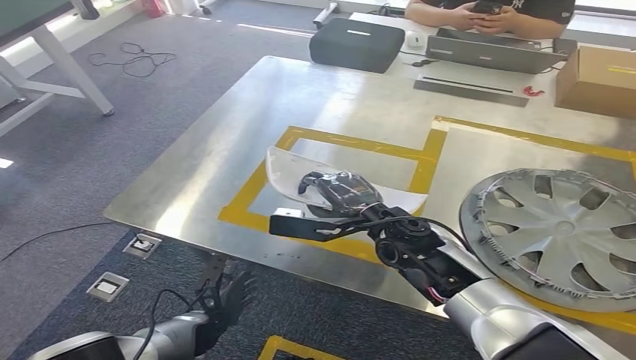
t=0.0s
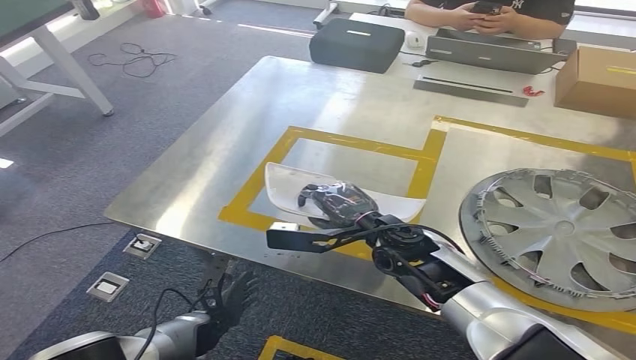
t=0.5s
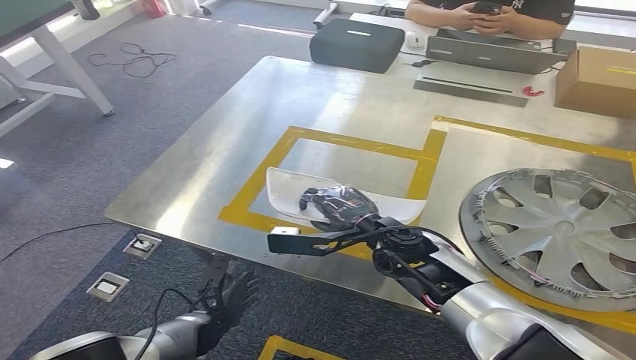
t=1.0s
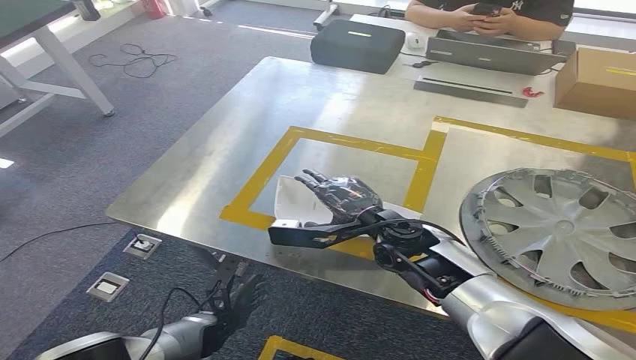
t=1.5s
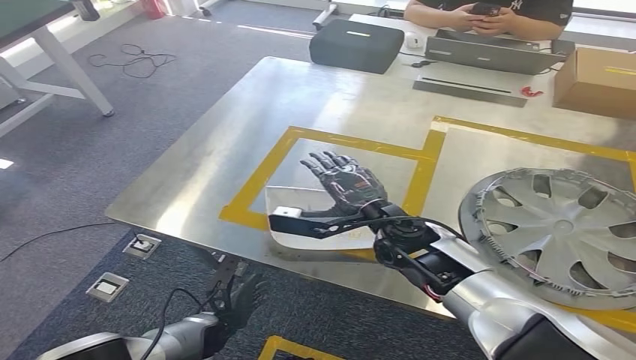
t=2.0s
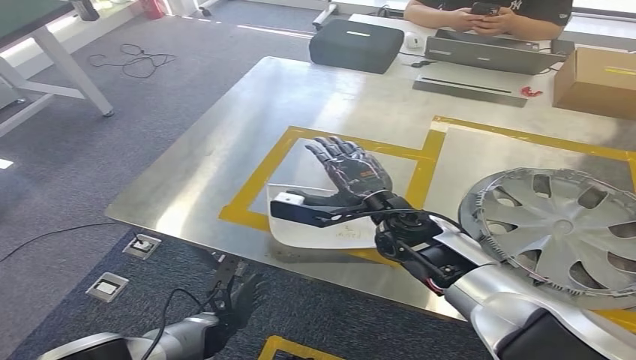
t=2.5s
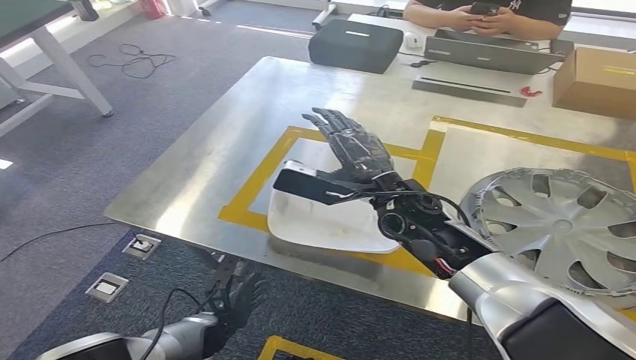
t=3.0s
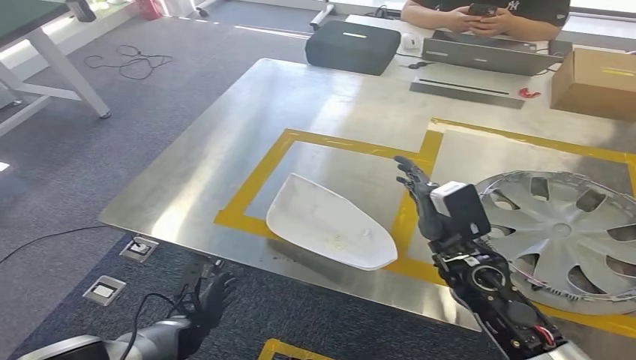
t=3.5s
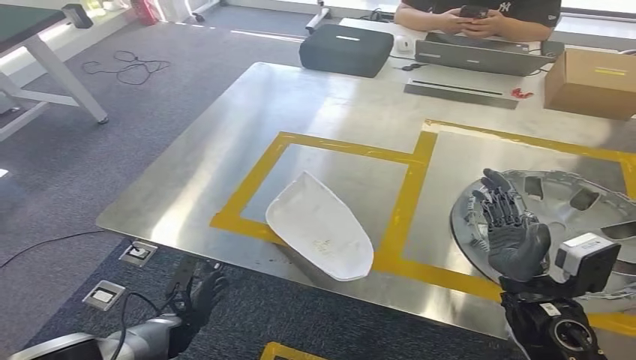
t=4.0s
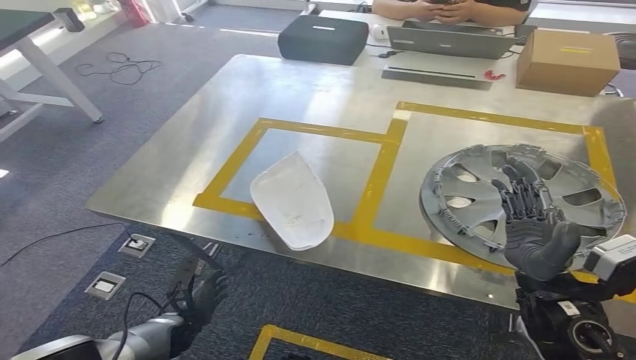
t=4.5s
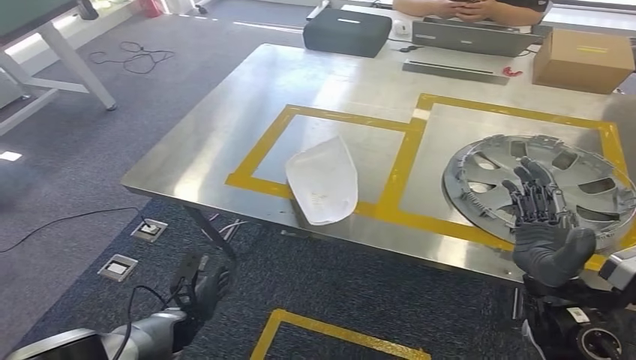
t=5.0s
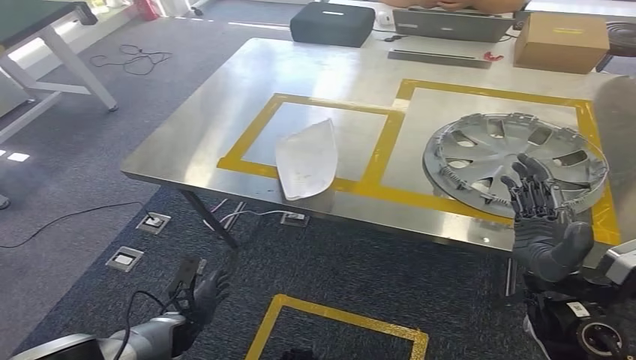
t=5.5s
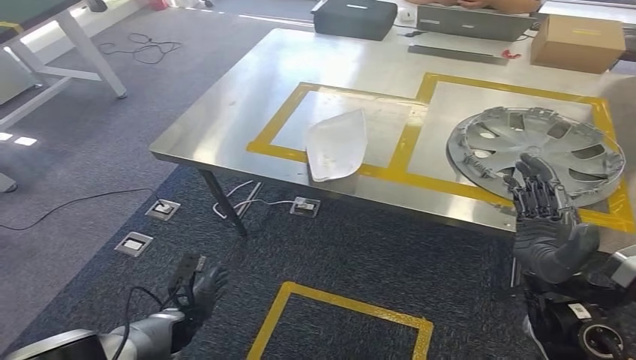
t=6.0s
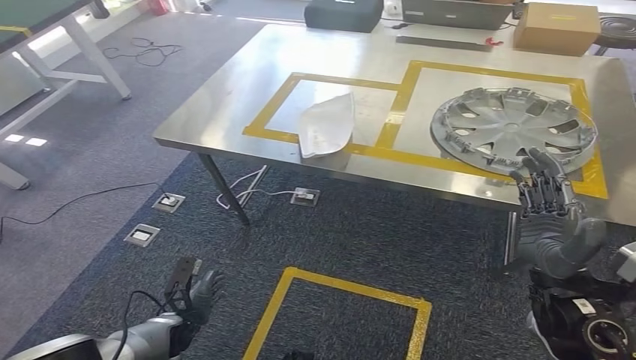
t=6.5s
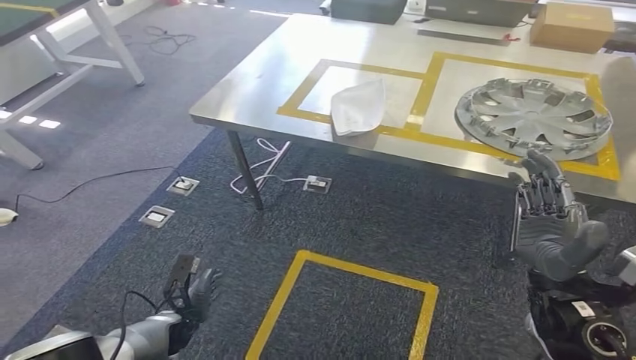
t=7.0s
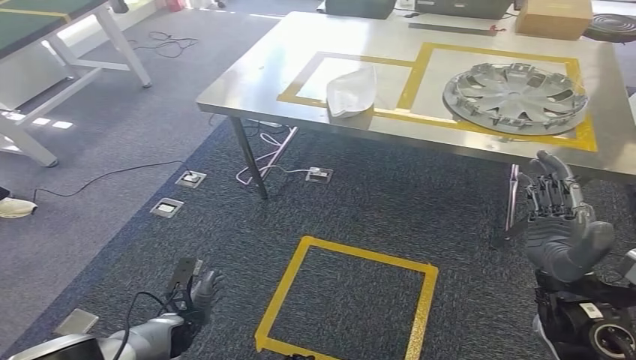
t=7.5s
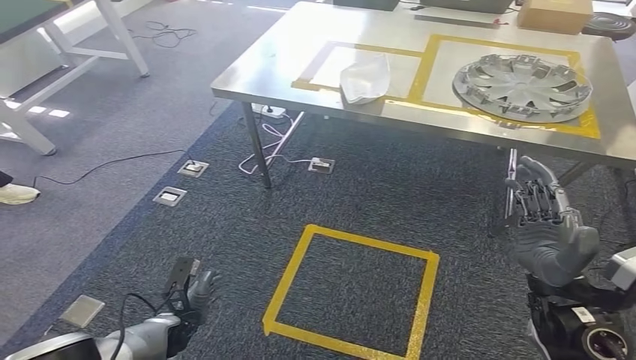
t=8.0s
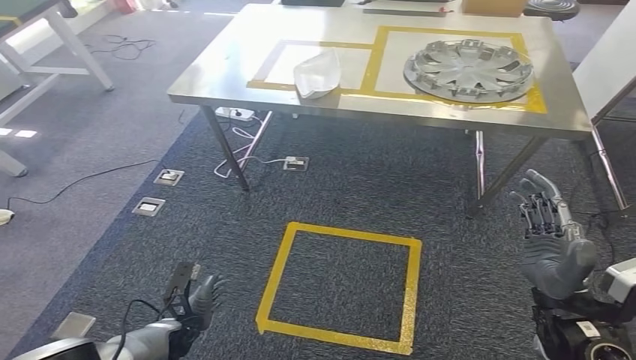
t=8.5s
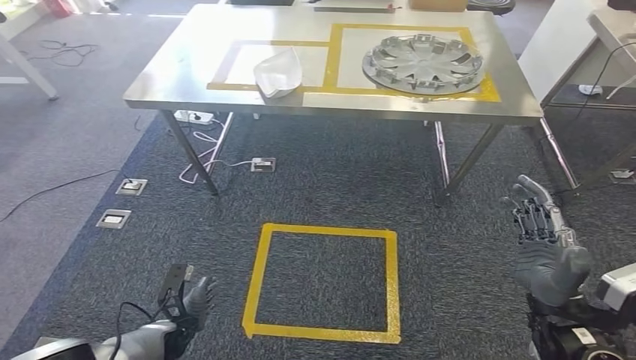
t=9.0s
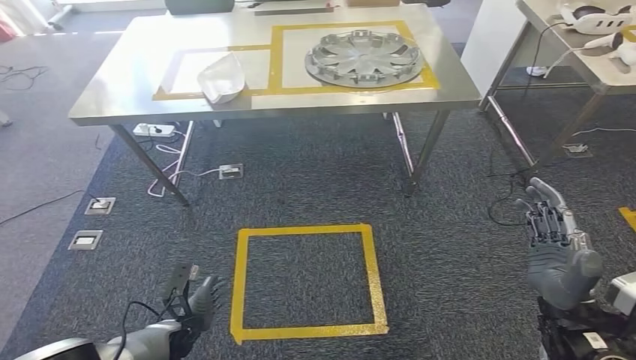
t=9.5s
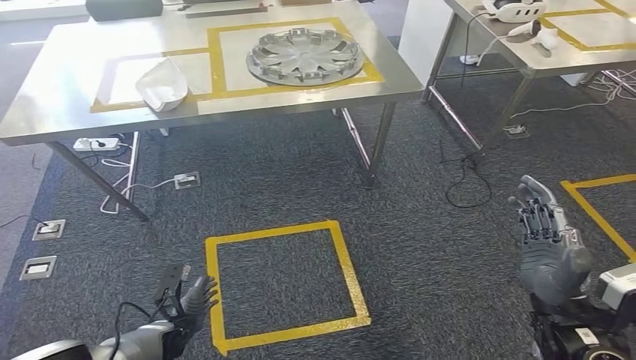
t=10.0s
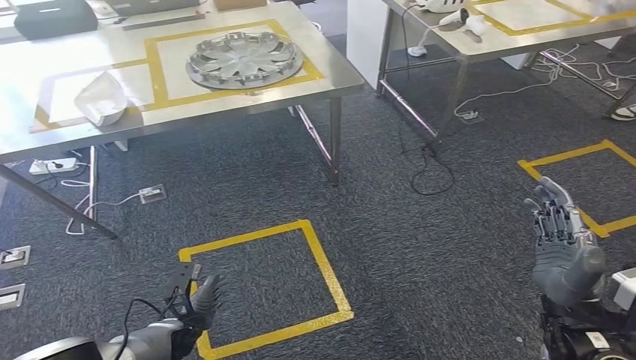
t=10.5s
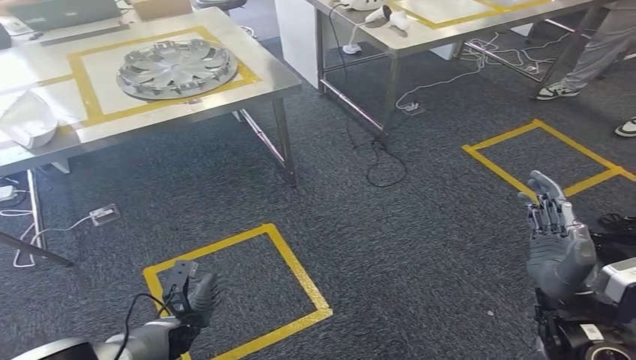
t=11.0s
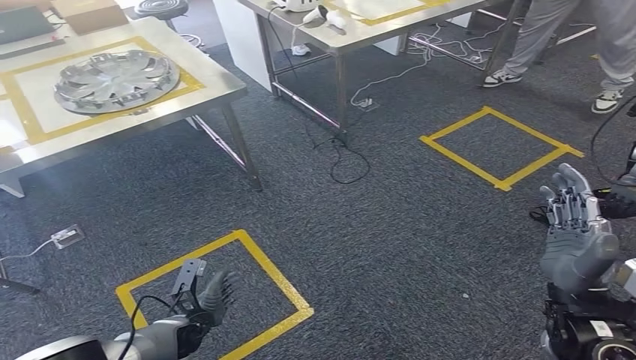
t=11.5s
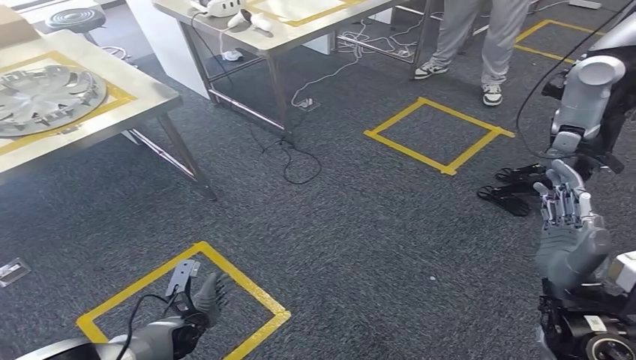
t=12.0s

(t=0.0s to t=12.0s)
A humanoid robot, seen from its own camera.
Step, t=0.0s - t=4.0s: Insert the small component into the corresponding slot on the workbench.
t=0.0s - t=2.0s: The hands move only a little.

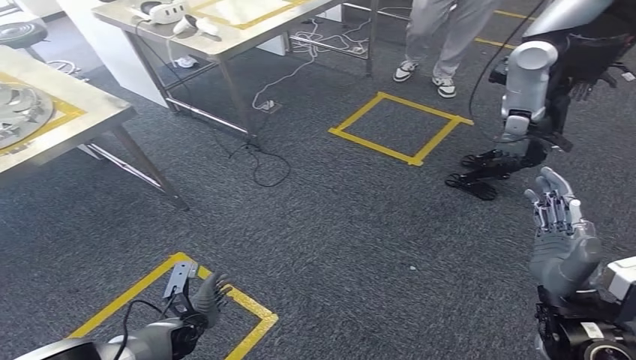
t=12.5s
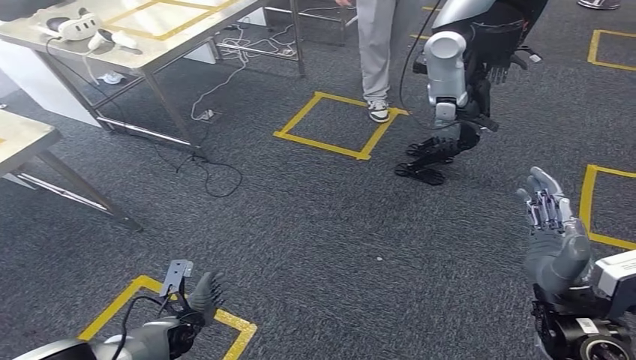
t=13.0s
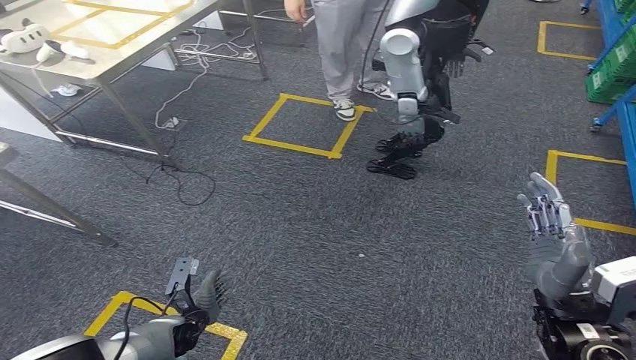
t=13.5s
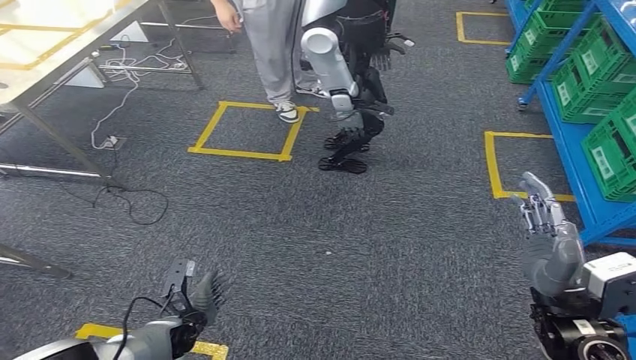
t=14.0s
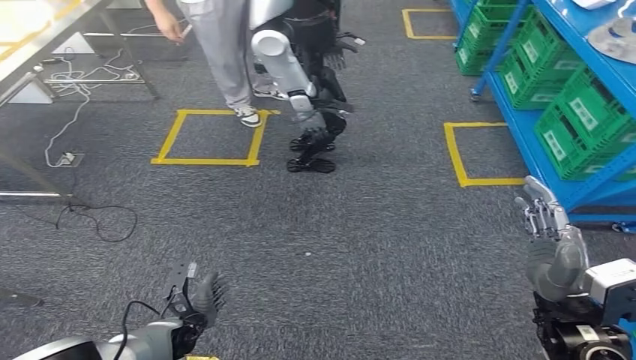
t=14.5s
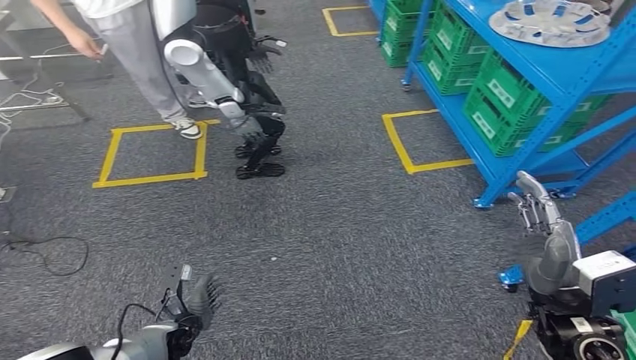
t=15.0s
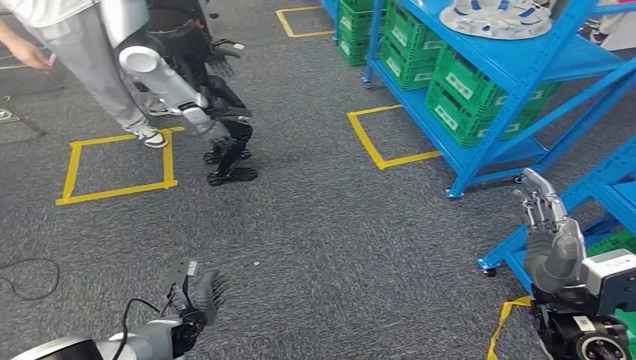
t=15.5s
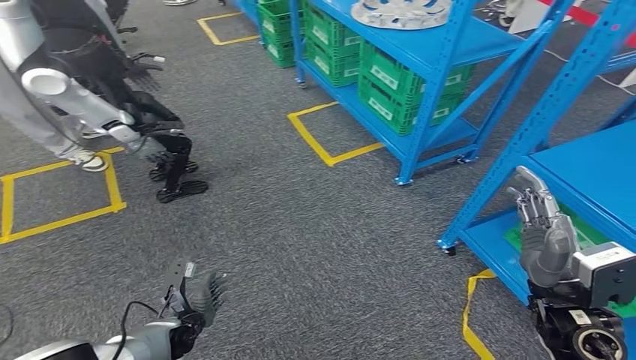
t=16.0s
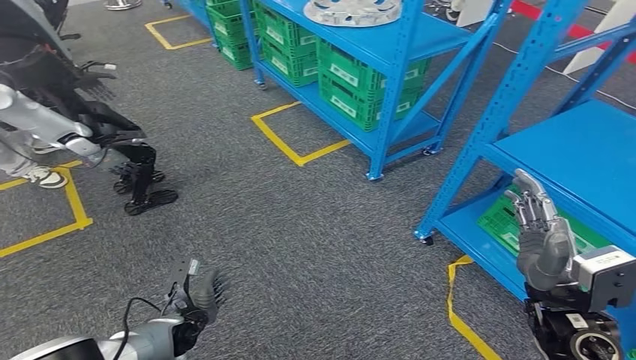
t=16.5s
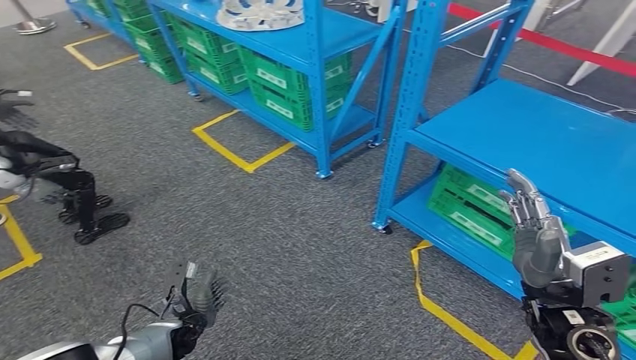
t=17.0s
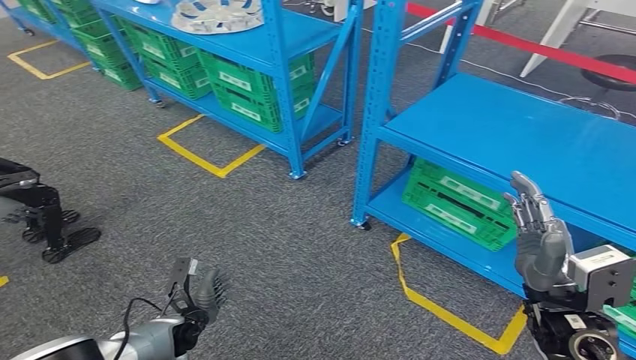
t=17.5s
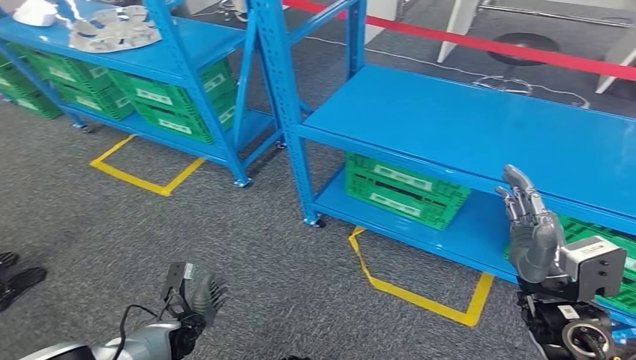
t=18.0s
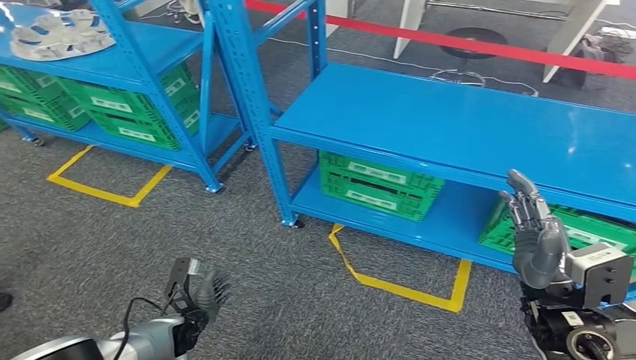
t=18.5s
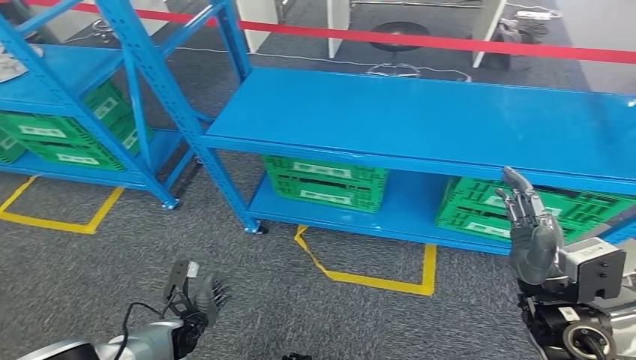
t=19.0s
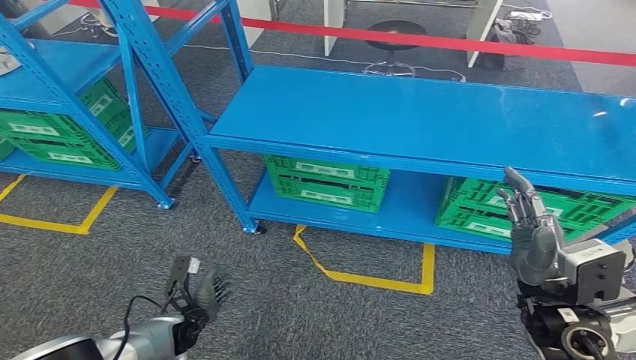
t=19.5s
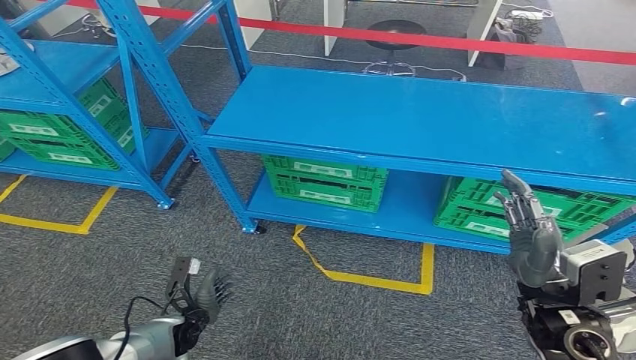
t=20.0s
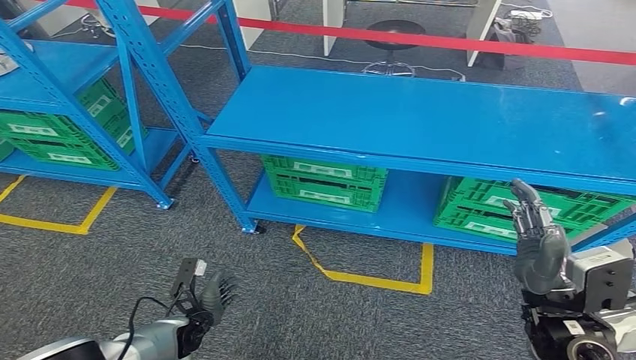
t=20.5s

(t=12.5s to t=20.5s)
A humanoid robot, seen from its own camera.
Step, t=12.5s - t=20.5s: Move to the initial position at the workbench.
